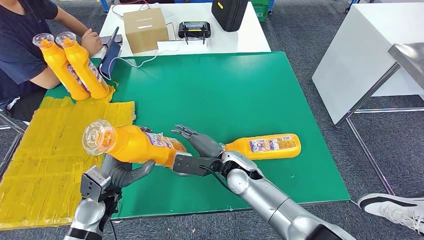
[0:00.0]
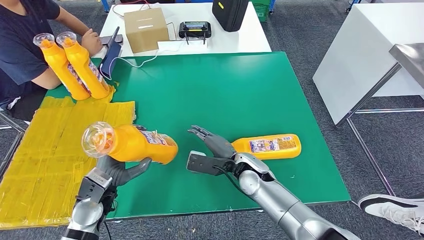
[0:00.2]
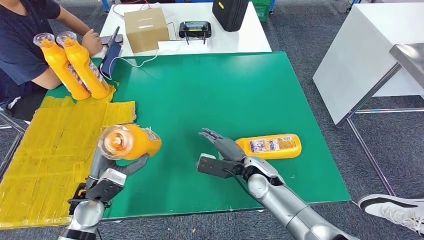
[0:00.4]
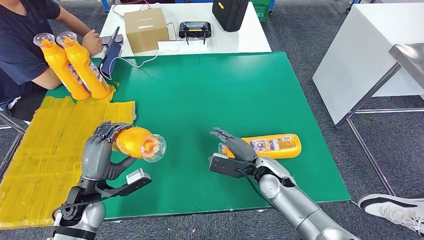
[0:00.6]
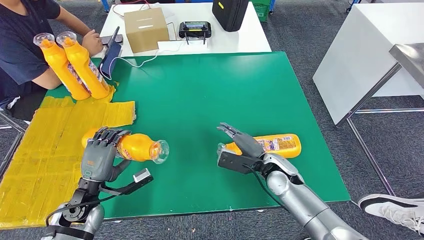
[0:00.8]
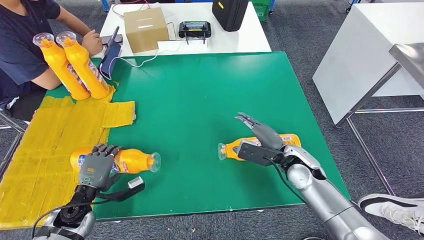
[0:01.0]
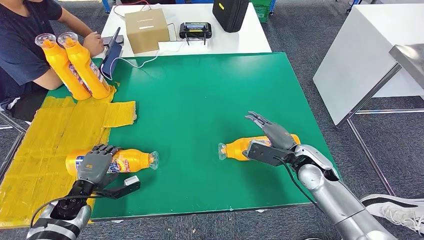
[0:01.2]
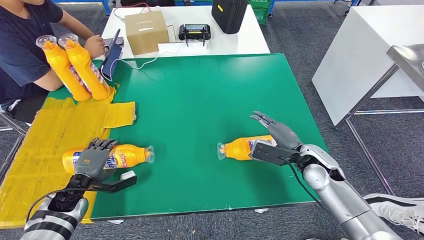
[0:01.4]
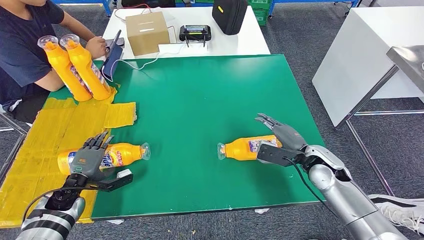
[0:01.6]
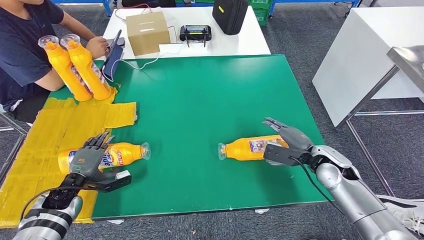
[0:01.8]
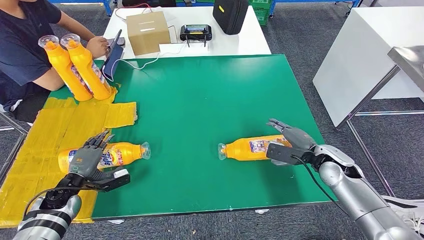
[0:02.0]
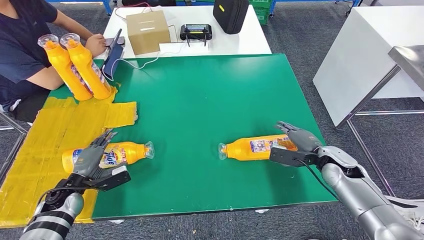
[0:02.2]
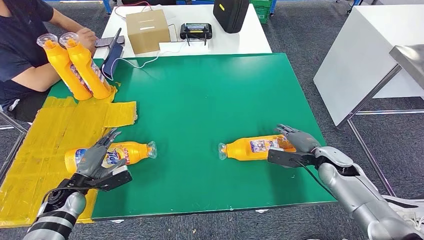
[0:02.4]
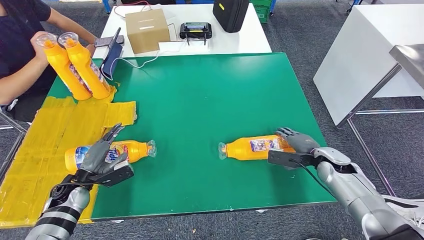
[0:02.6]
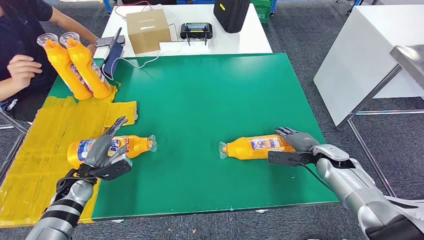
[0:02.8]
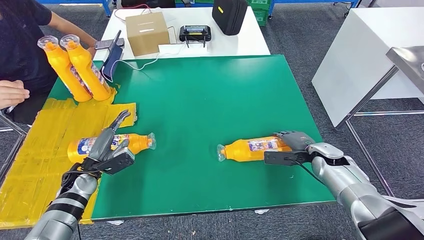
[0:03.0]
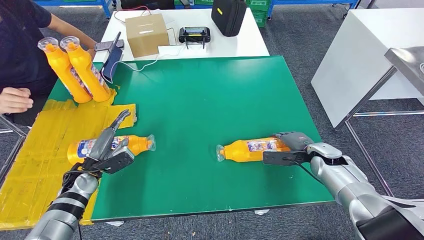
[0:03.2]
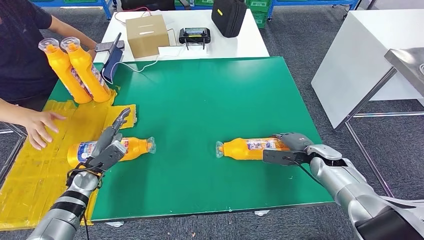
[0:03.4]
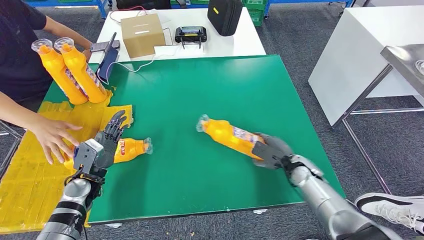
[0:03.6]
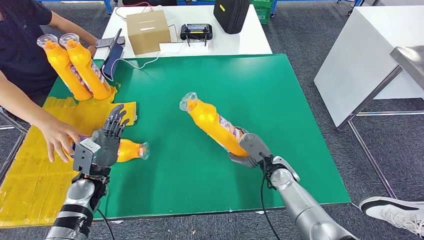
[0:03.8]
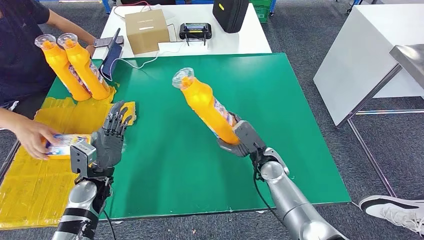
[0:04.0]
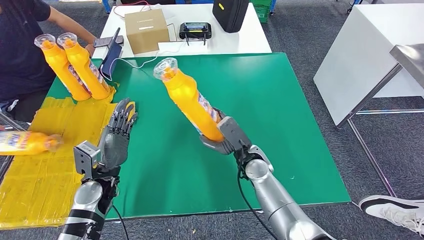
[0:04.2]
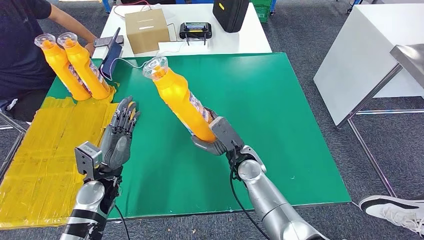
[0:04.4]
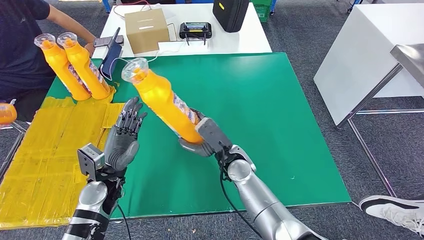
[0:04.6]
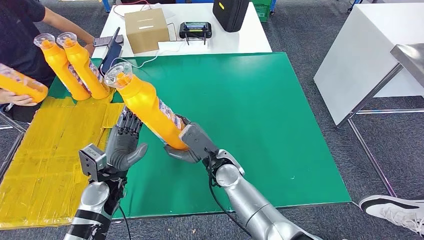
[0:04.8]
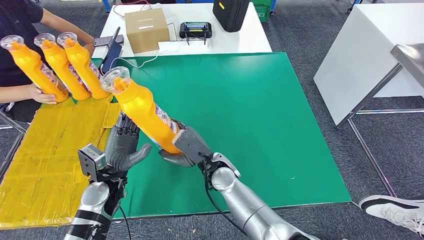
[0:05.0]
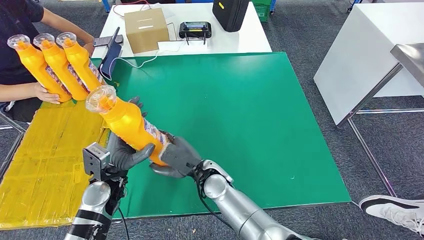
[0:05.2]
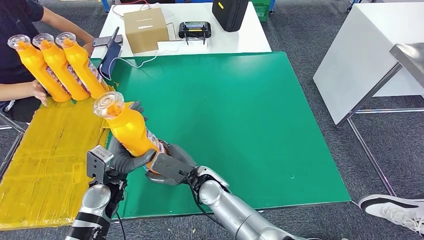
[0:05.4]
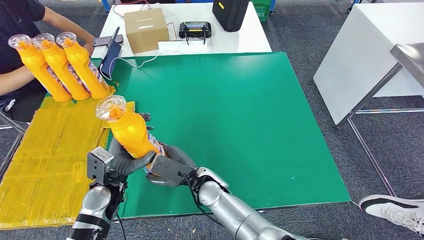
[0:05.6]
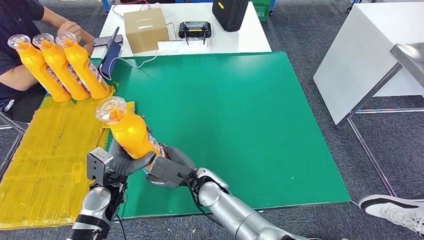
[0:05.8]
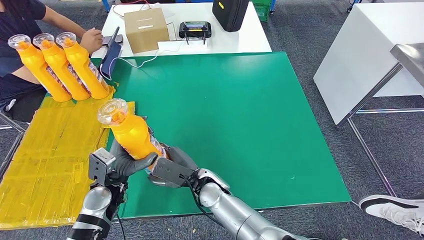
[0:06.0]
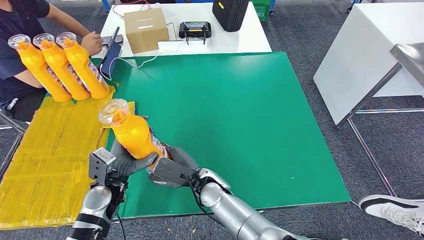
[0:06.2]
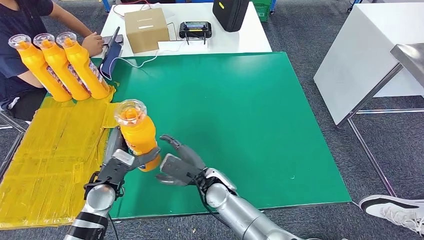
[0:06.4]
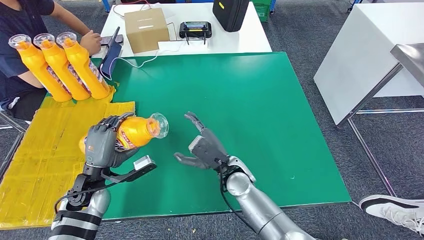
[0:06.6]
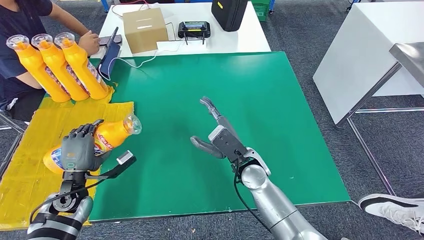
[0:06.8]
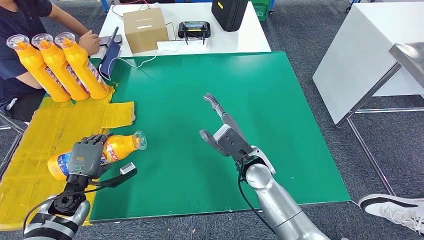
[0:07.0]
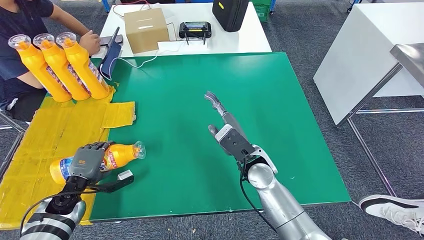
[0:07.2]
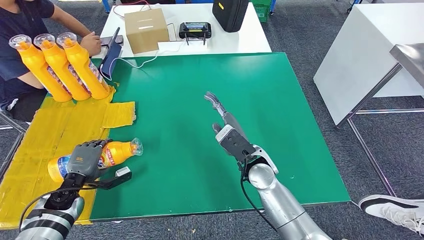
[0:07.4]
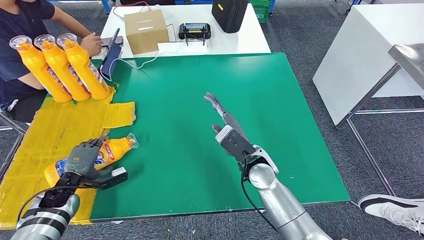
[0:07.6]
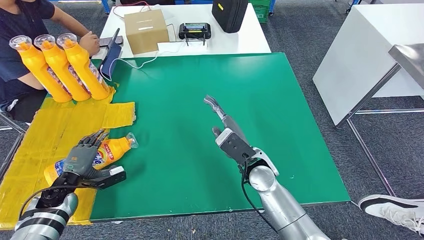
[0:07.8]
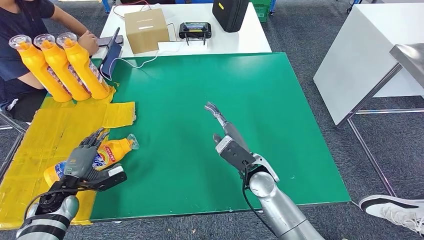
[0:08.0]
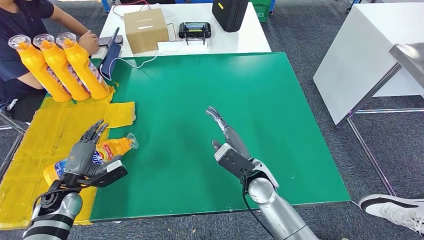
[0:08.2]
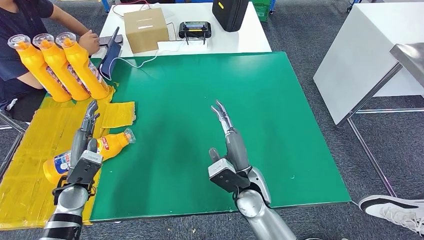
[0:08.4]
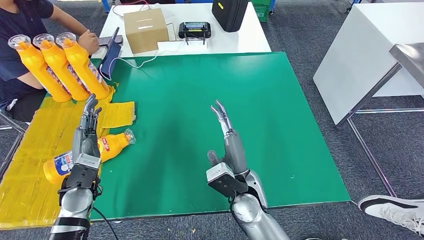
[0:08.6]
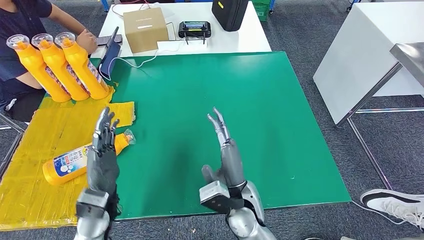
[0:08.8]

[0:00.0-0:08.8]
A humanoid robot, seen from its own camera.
Step, 0:00.0 to 0:02.2: Flip the fast-moving consumer goods bottle to the front side.
Step, 0:03.2 to 0:04.4: Pick up the fast-moving consumer goods bottle from the table.
Step, 0:05.4 to 0:08.8: Flip the fast-moving consumer goods bottle to the front side.
0:05.8 to 0:07.4: The right hand goes some 15 cm to the right and upward. Meanwhile the left hand moves to the left, roughly 15 cm.
